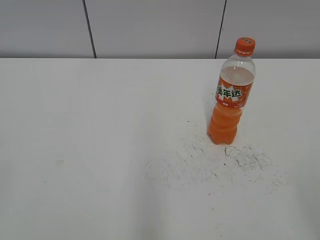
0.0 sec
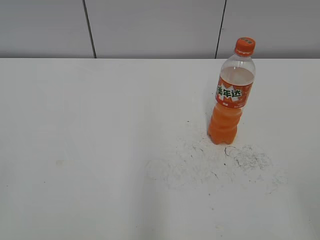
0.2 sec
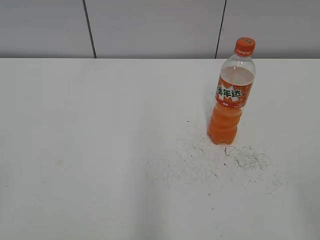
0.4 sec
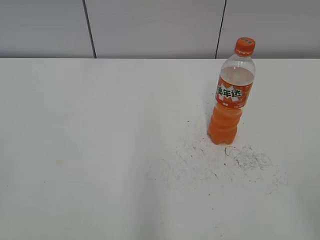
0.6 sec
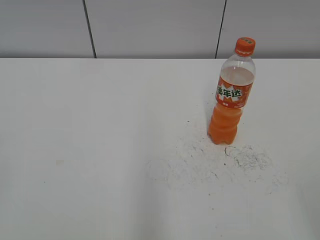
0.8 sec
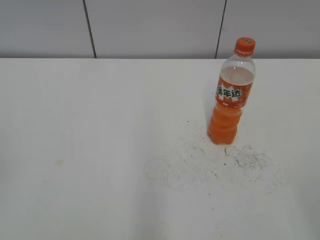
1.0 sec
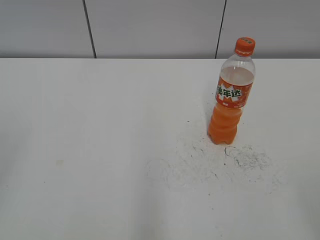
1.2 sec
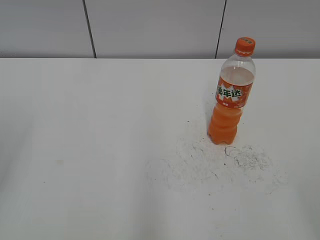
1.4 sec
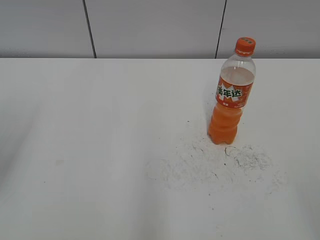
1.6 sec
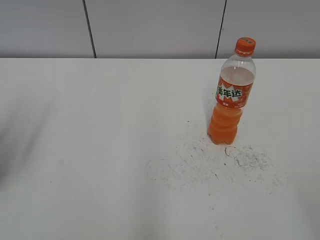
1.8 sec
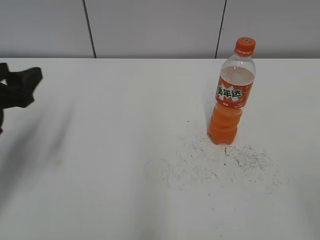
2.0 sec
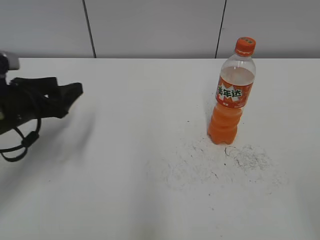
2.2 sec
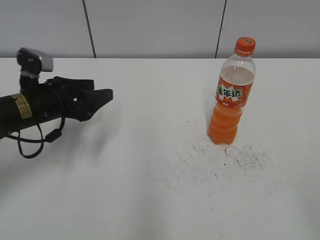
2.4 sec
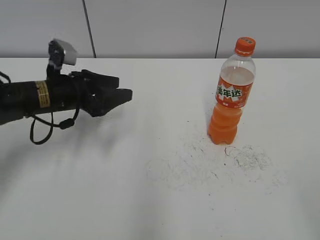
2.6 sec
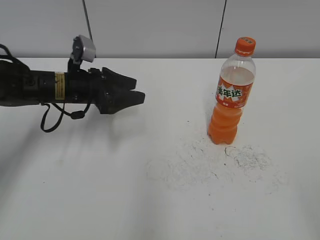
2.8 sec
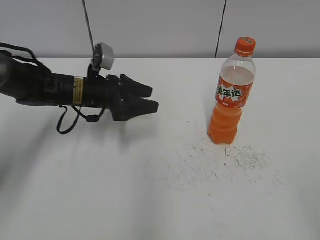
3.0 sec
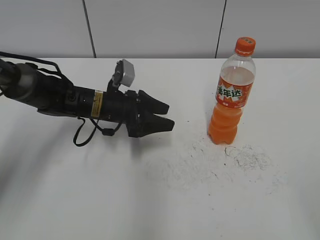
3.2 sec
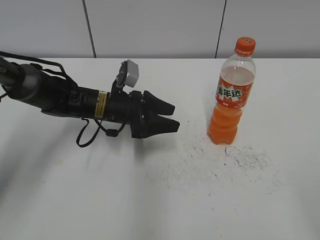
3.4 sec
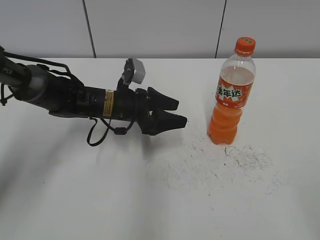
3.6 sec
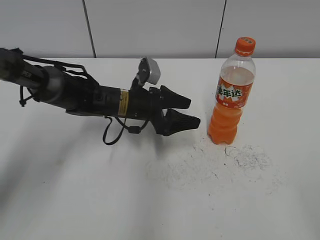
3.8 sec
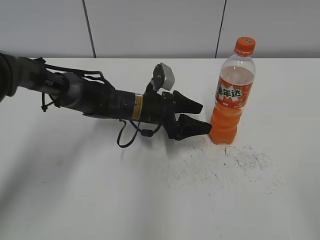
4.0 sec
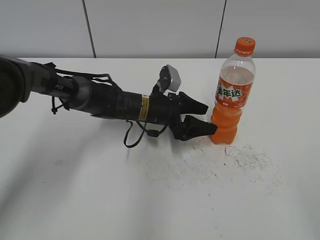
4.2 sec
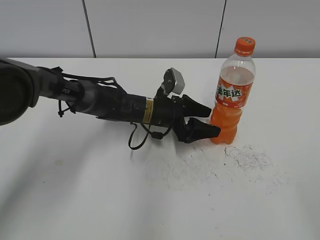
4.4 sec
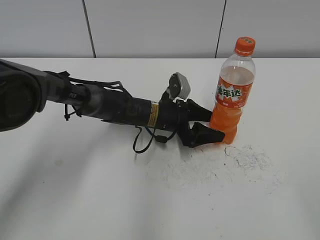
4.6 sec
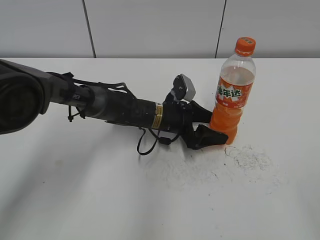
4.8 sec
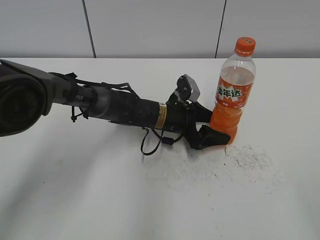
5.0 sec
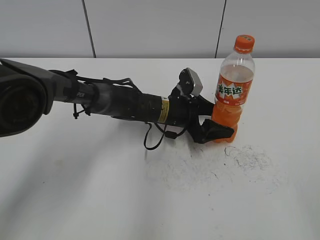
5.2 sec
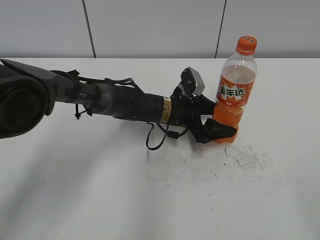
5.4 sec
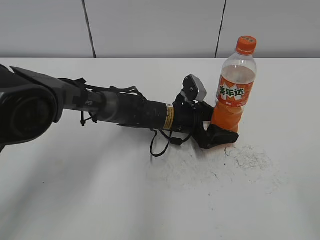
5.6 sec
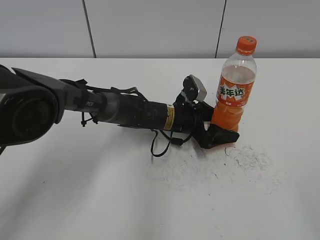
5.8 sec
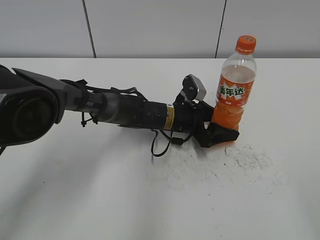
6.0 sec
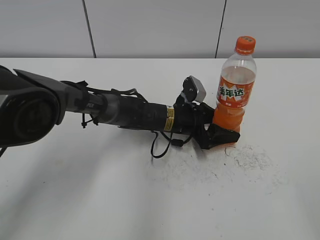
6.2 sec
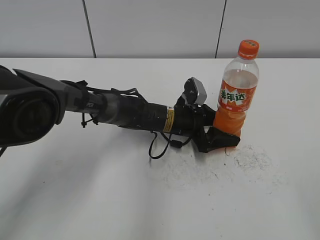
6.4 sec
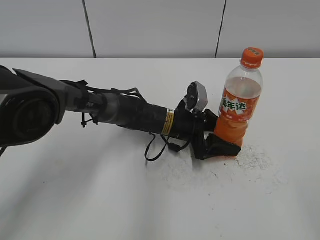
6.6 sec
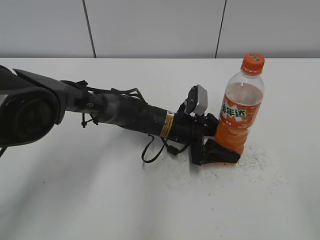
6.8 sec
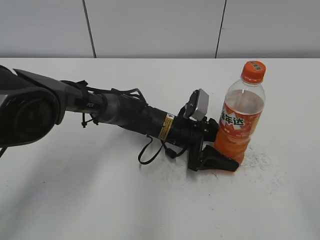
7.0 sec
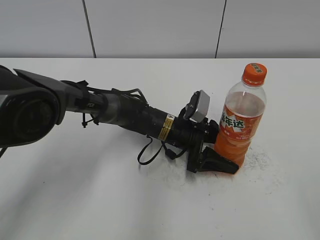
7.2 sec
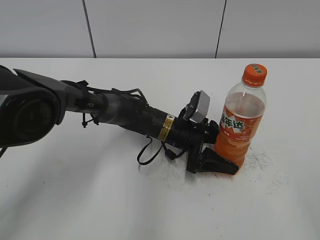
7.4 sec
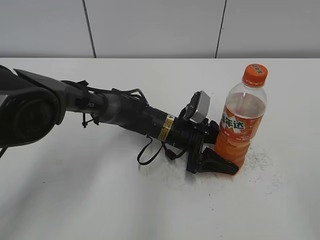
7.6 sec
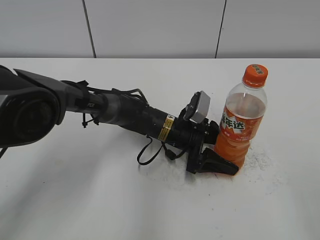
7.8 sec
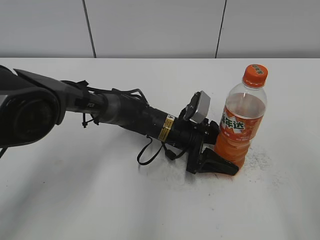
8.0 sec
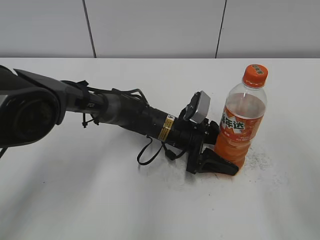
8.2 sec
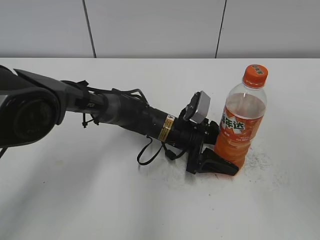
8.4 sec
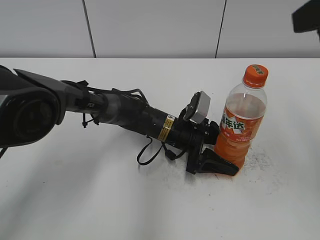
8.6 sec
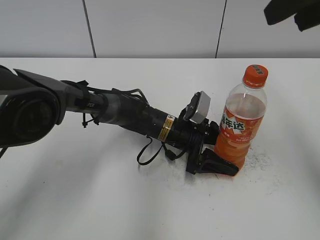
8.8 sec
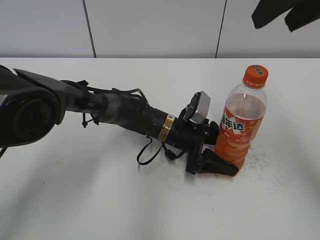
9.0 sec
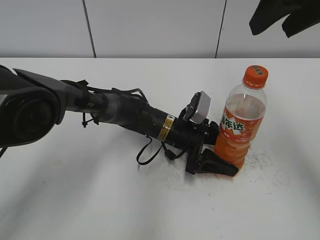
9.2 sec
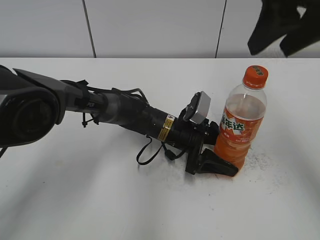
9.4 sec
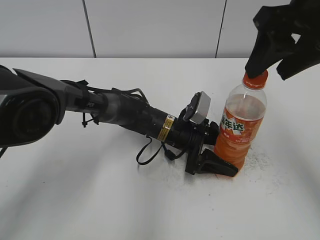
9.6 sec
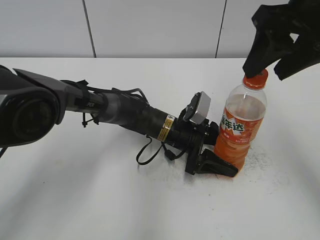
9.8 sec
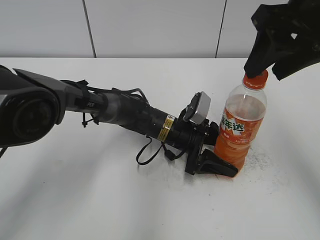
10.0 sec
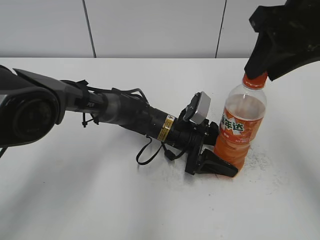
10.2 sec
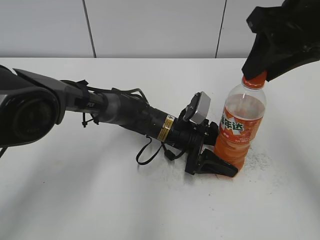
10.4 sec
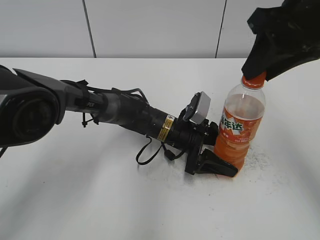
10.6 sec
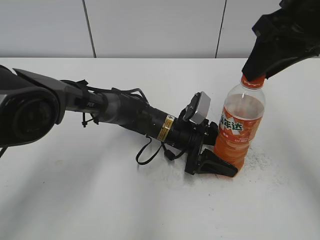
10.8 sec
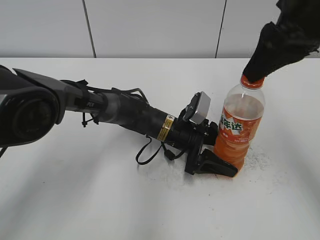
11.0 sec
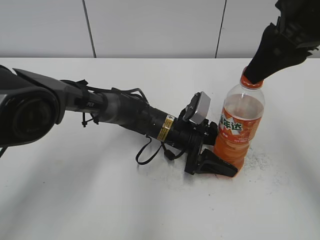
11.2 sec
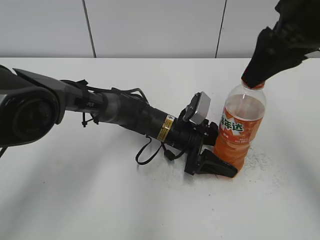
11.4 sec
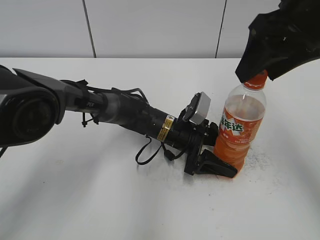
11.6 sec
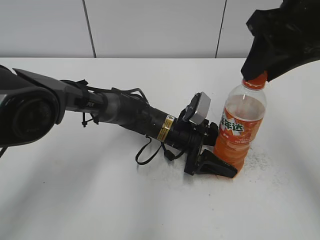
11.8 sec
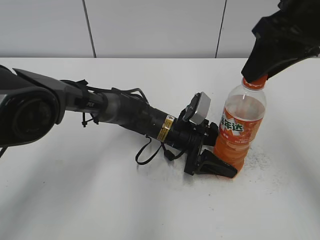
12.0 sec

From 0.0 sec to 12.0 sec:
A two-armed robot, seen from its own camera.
Step, from 0.0 sec to 6.2 sec: Grab the Mirinda with the left hand.
Step, from 6.4 sec to 7.2 sec: Move the Mirinda to the right with the left hand.
From 1.6 sec to 3.0 sec: The left gripper travels forward, to the right and downward by approximately 35 cm.
From 3.0 sec to 4.4 sec: The left gripper is displaced to the right and downward by roughly 15 cm, and opens.
From 4.4 sec to 6.0 sec: The grippers move only a little.
From 7.6 sec to 9.0 sec: The right gripper shifts roughly 30 cm forward and upward.
From 9.0 sec to 10.4 sec: The right gripper is displaced downward by roughly 5 cm, and closes its fingers.
From 10.4 sec to 12.0 sec: The right gripper opens, then closes again.

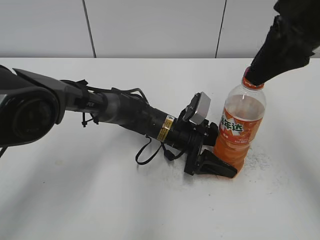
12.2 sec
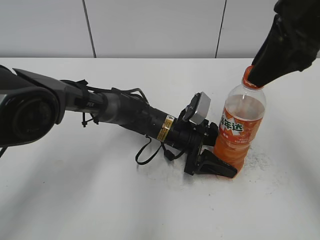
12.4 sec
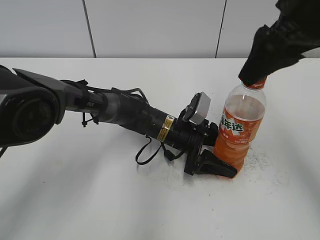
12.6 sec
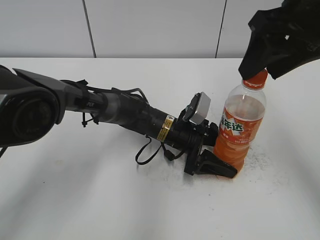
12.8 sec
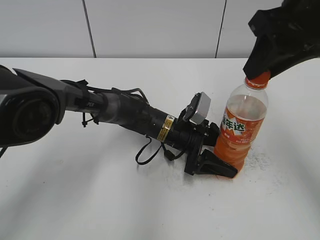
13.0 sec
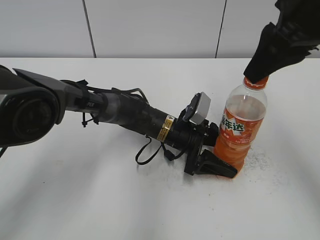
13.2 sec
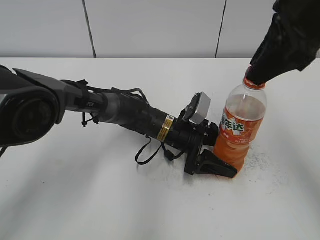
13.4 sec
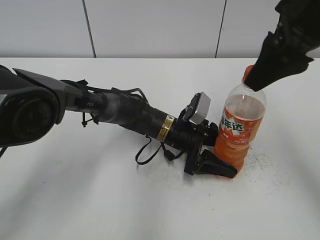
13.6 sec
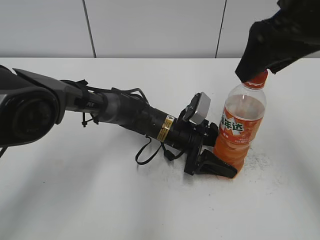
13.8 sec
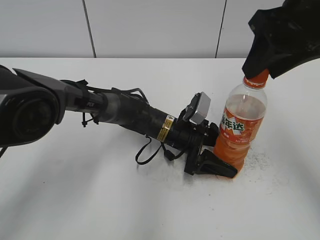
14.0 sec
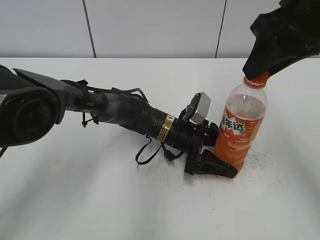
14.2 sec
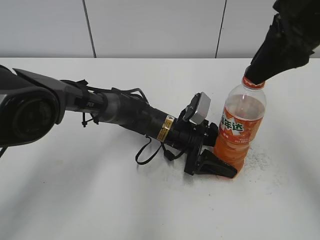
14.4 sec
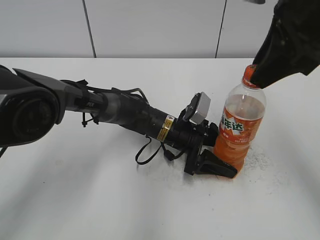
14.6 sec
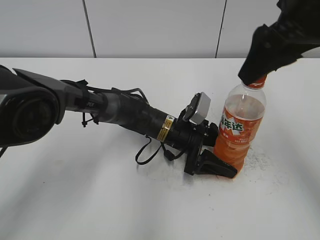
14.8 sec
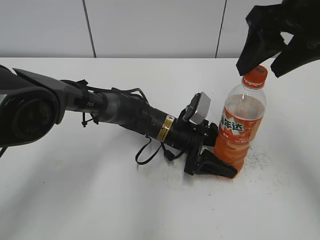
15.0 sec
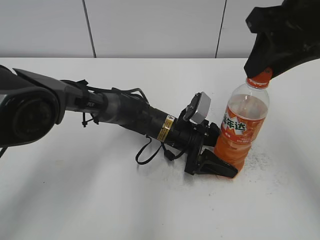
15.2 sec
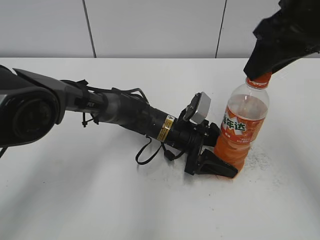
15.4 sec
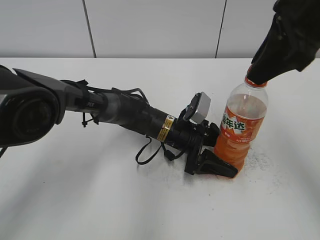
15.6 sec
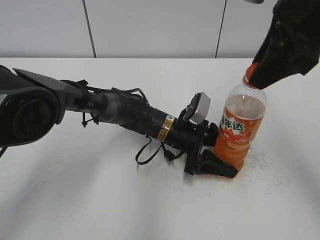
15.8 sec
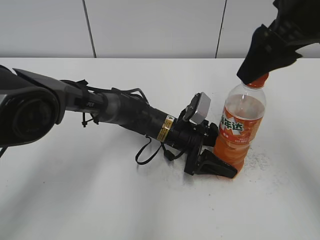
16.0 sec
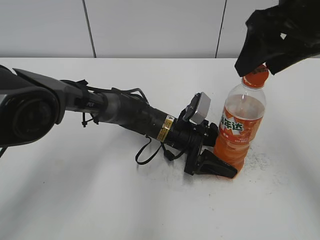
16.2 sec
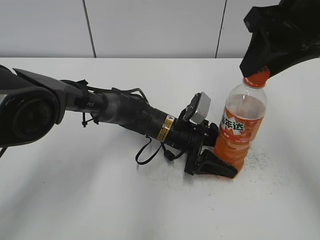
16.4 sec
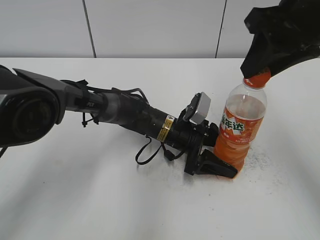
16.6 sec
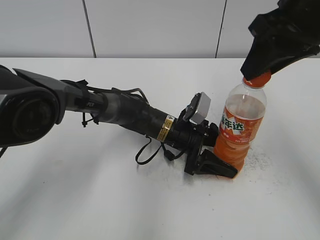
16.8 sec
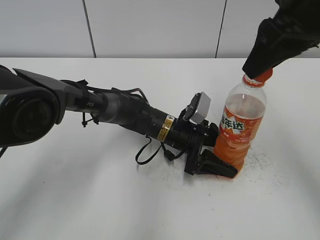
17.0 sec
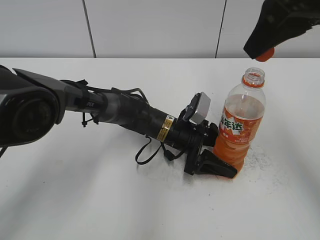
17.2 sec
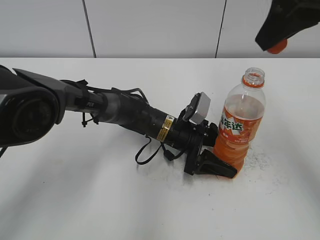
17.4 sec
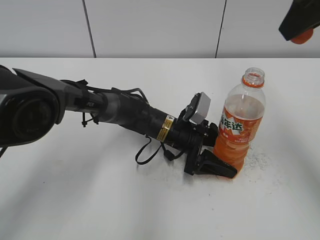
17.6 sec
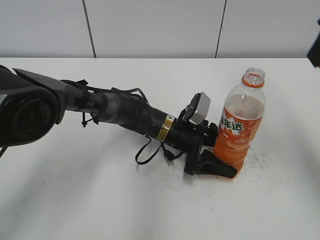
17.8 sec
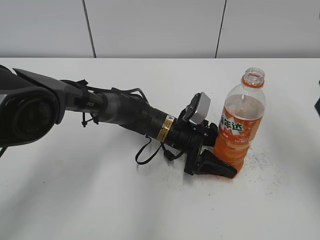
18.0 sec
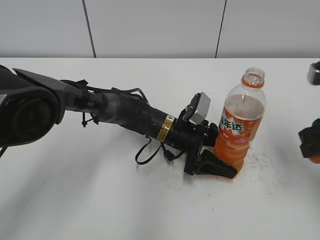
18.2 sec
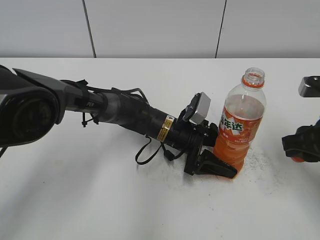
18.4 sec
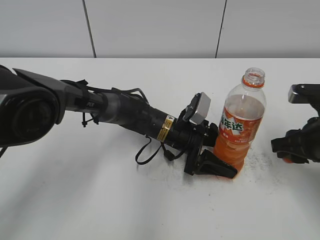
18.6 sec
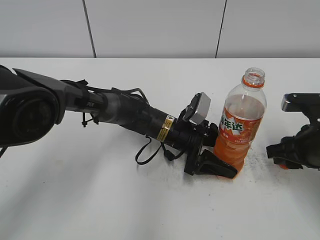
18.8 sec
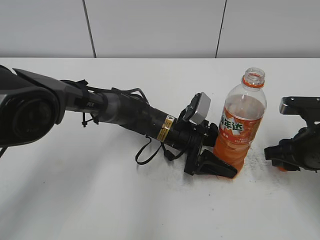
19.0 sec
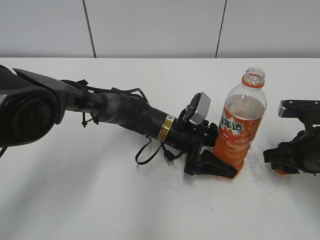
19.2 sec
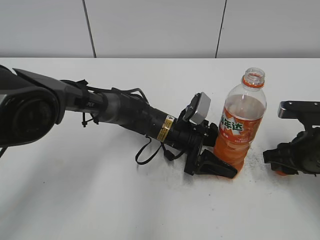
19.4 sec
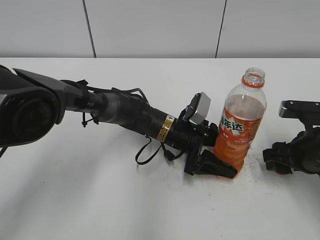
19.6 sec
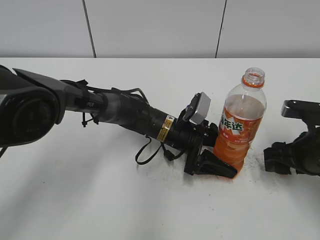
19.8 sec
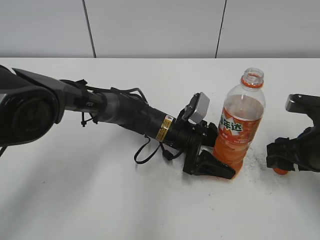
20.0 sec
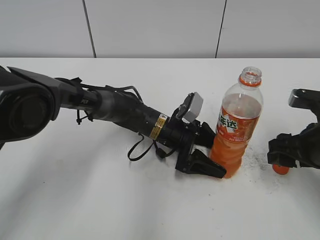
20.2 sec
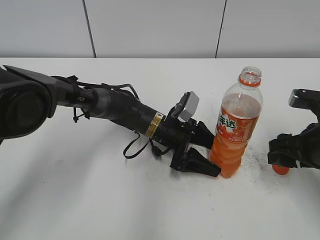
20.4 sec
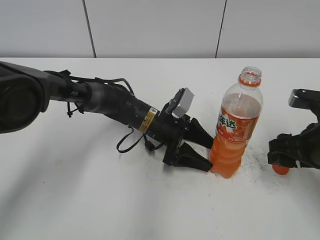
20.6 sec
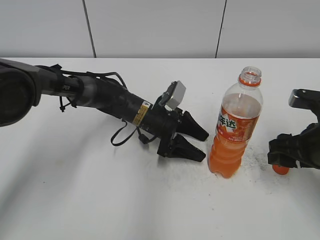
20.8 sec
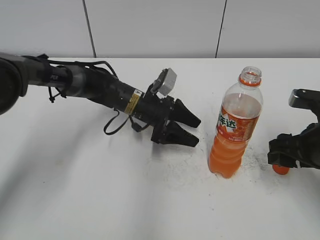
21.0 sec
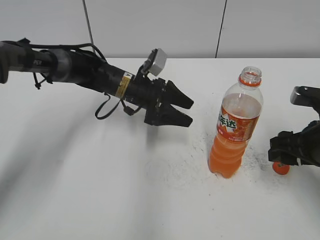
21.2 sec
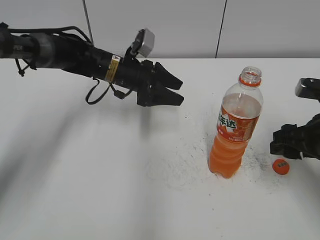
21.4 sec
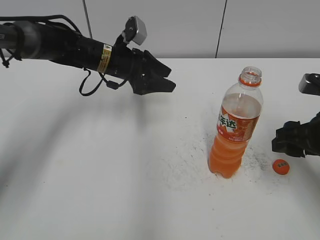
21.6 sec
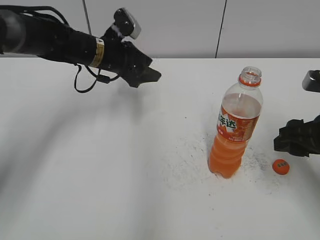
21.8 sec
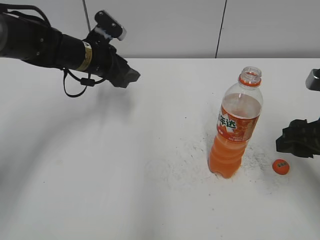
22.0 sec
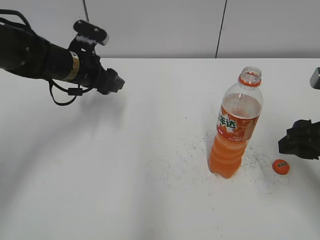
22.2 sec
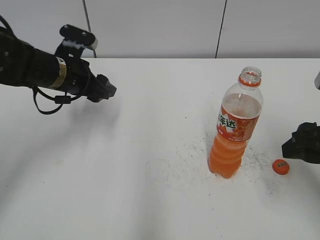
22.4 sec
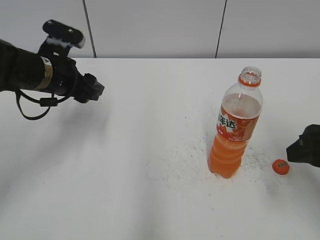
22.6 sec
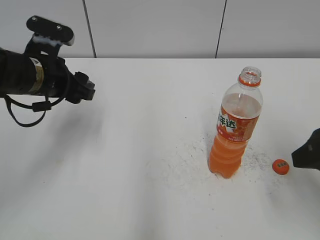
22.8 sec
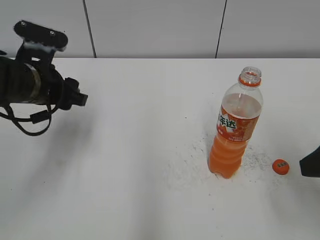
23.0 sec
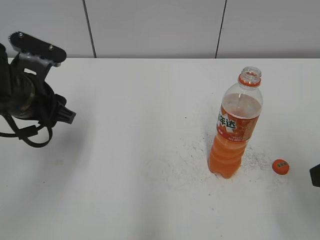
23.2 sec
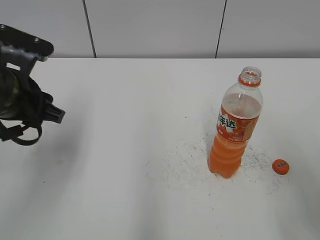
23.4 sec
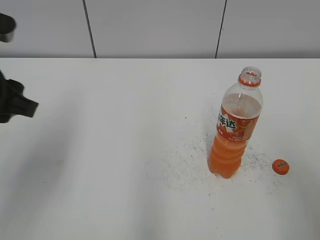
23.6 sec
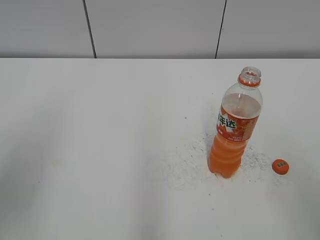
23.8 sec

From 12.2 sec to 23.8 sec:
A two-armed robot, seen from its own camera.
Step, from 17.0 sec to 19.6 sec: Place the bottle cap on the table with the right hand.
Step, from 20.0 sec to 20.2 sec: Place the Mirinda with the left hand.
From 12.2 sec to 13.6 sec: The right gripper opens up.
From 13.6 sec to 15.0 sec: The right gripper closes, then opens again.
From 15.0 sec to 16.6 sec: The right gripper closes its fingers.
From 16.6 sec to 18.0 sec: The right gripper is displaced to the right by approximately 5 cm.
From 18.0 sec to 19.4 sec: The right gripper goes about 20 cm downward.
From 19.4 sec to 21.0 sec: The right gripper opens up. The left gripper heads to the left, covering approximately 5 cm.
From 21.0 sec to 22.4 sec: The left gripper moves to the left and upward, approximately 15 cm, and closes, while the right gripper is displaced upward by roughly 5 cm.
From 22.4 sec to 23.8 sec: The left gripper shifts some 25 cm backward and upward; the right gripper moves backward and upward, about 15 cm.
